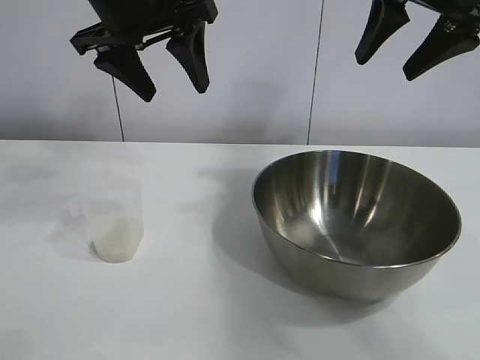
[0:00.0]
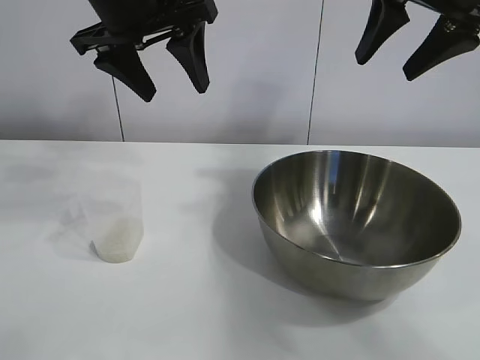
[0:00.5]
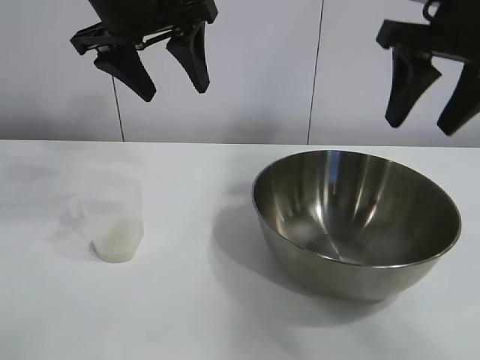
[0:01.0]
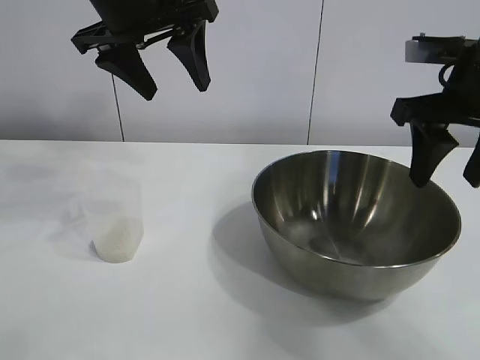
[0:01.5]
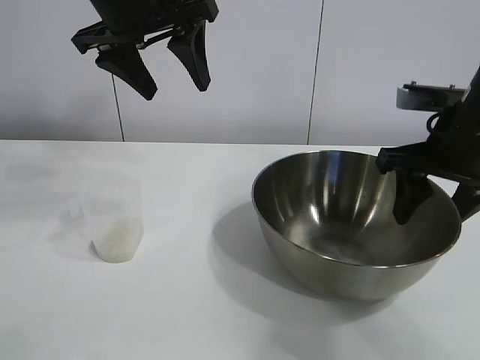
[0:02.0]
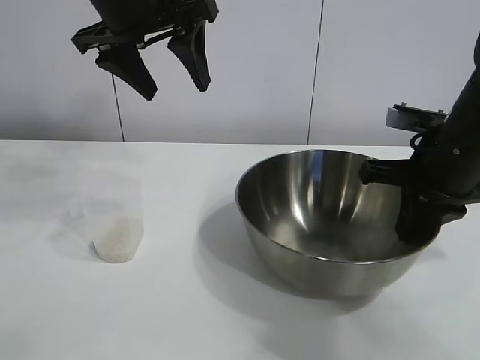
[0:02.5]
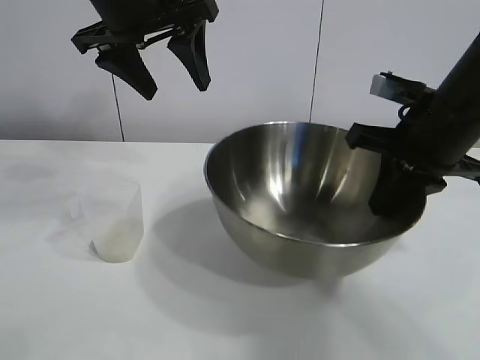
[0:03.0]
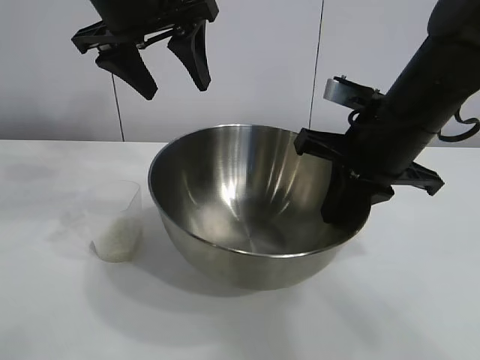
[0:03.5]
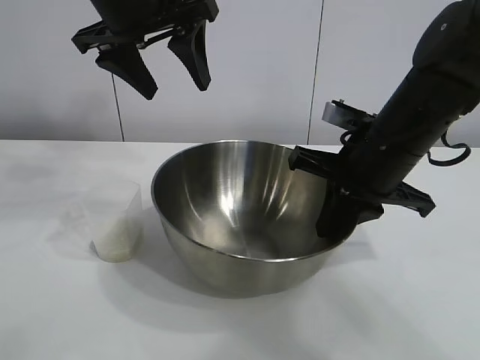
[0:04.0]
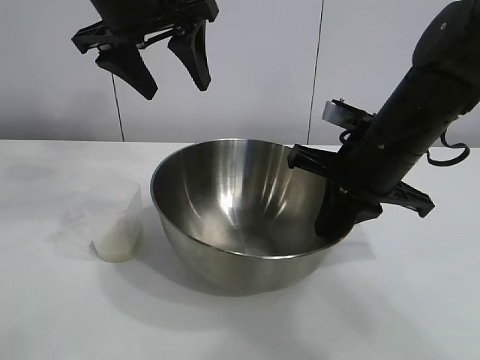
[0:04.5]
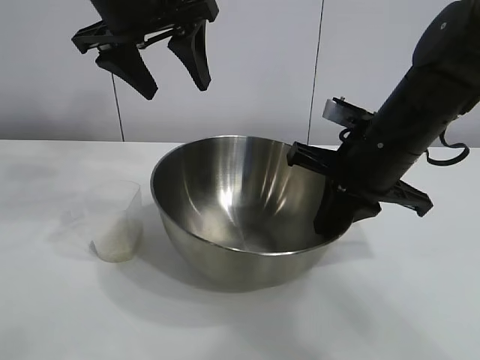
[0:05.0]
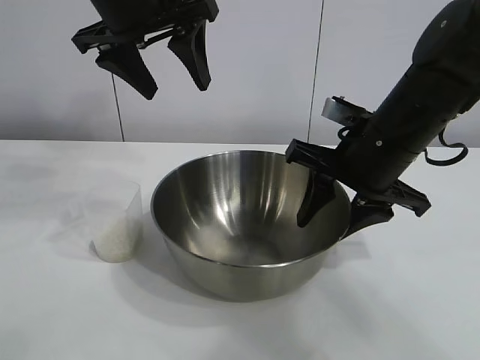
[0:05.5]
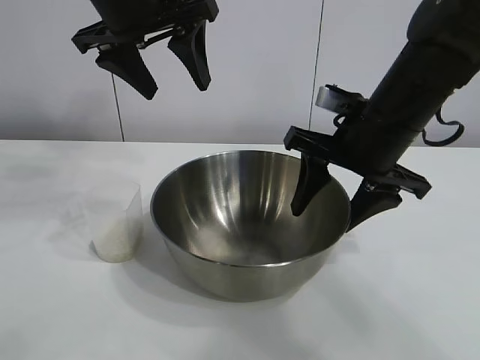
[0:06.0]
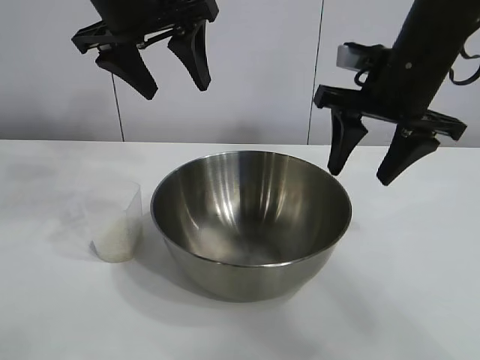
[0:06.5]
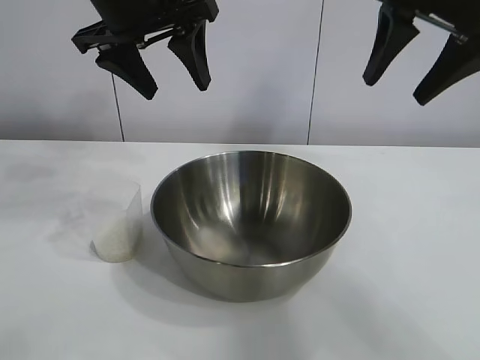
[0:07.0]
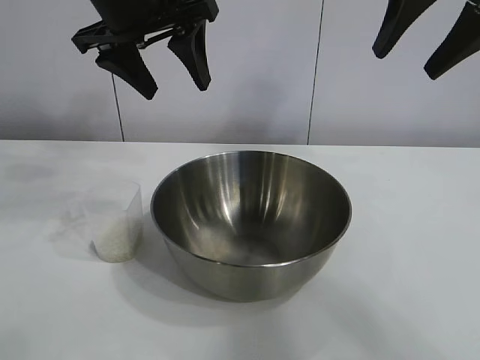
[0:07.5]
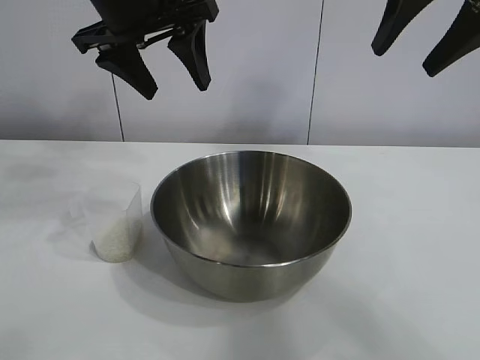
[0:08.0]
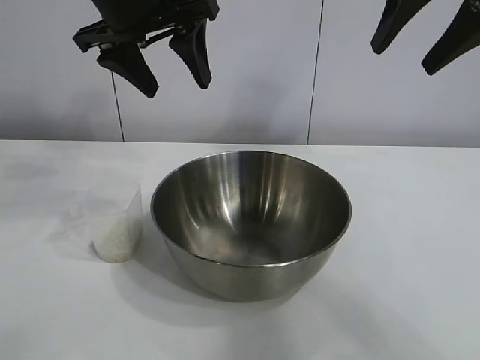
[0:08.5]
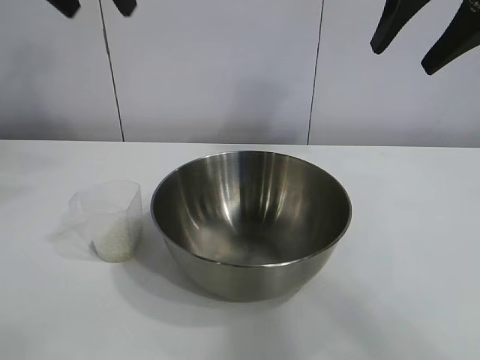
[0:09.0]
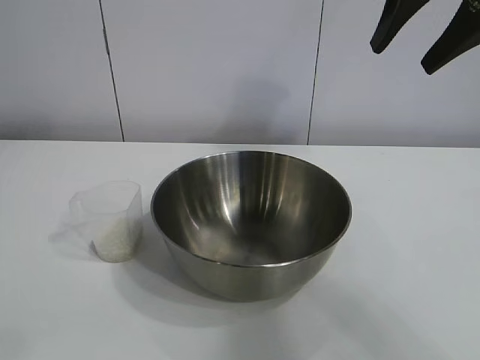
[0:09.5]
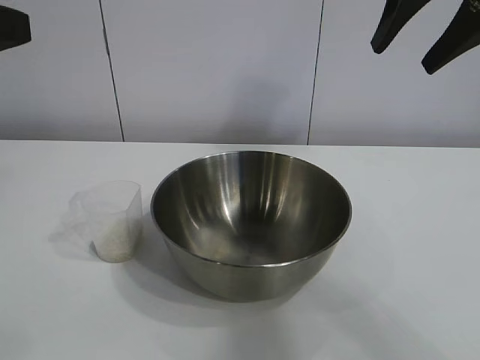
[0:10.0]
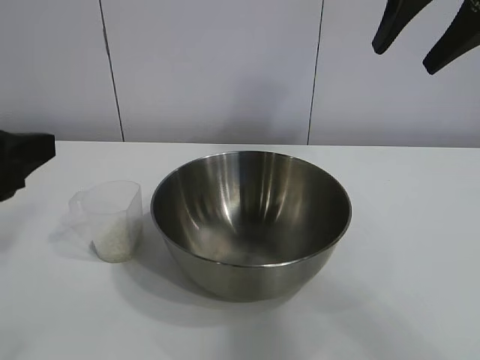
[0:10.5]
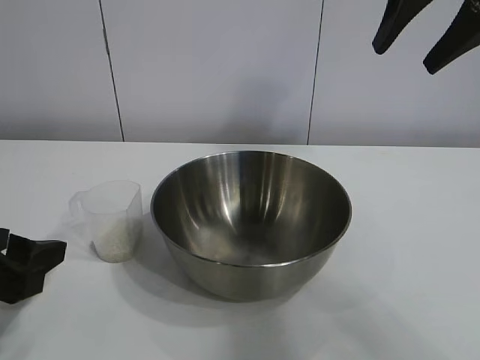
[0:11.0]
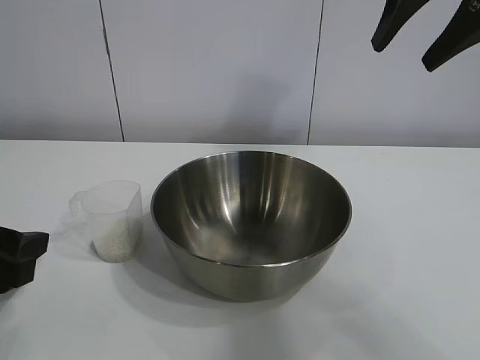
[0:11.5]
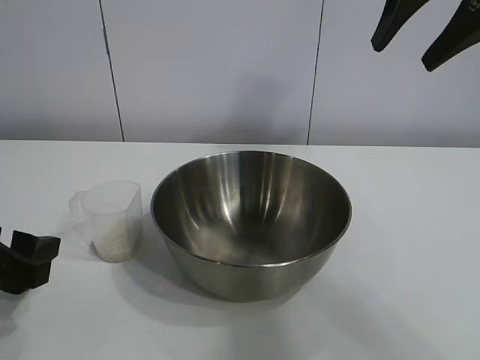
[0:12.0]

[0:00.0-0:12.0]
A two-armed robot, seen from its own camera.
Task of the whole recording: the right gripper grasp the rice container and place it in the center of the table, the left gripper grasp the rice scoop and pour the rice into the rice container.
Step, 0:01.0 to 0:05.5: Move the bowl in the center of view with right gripper.

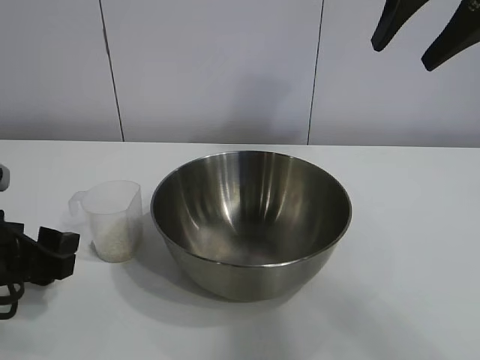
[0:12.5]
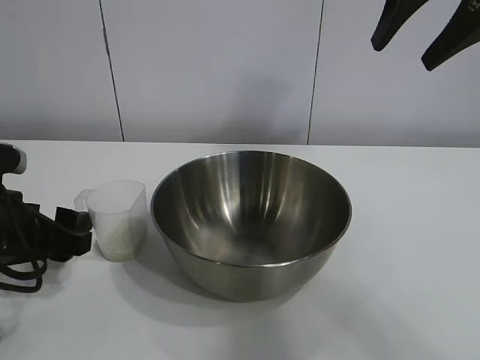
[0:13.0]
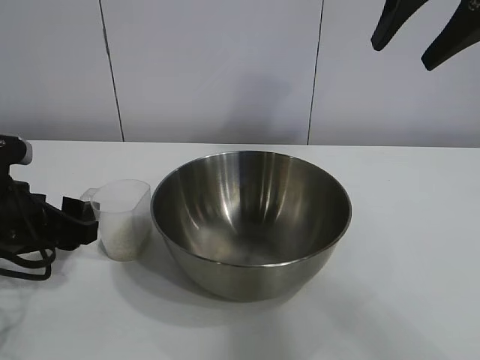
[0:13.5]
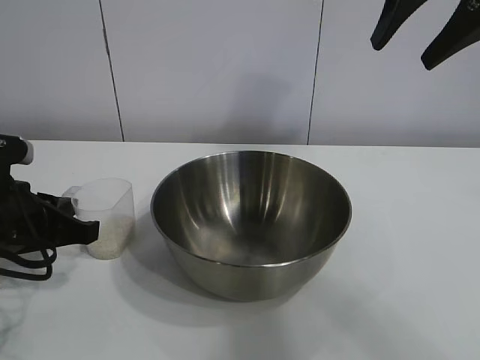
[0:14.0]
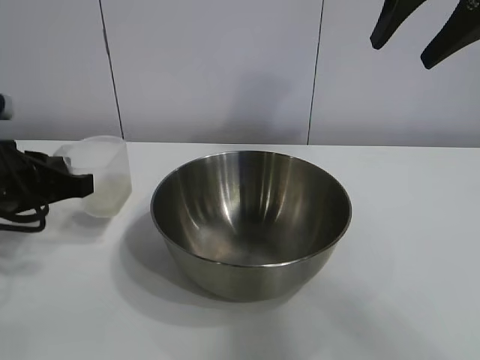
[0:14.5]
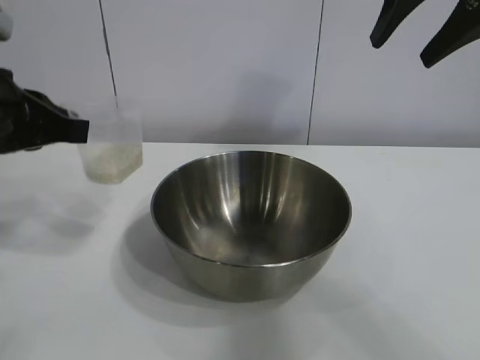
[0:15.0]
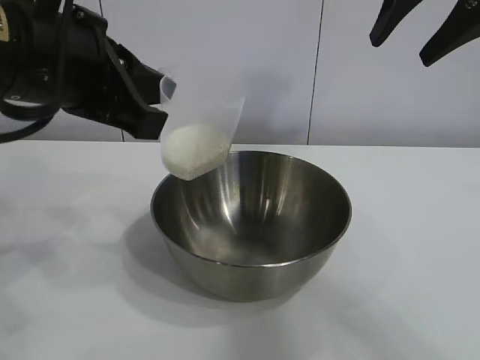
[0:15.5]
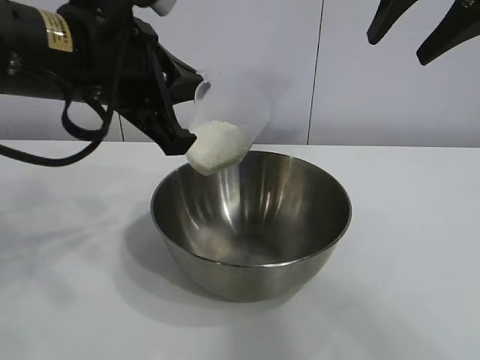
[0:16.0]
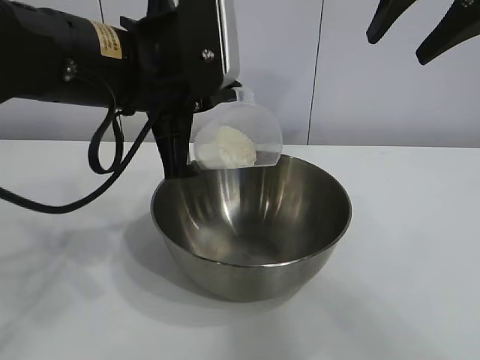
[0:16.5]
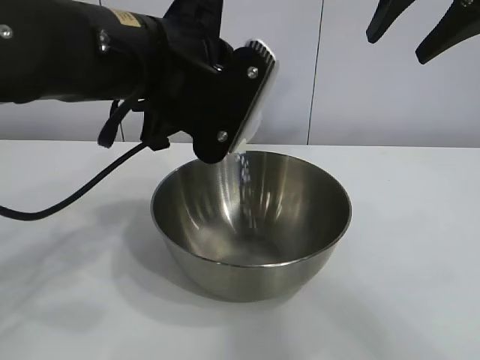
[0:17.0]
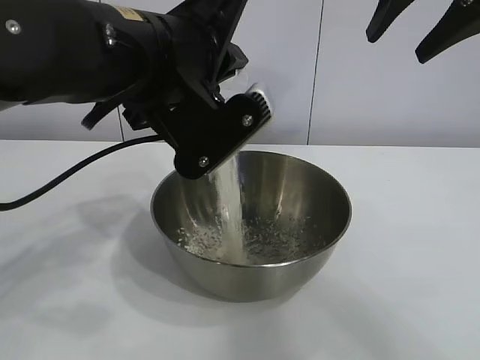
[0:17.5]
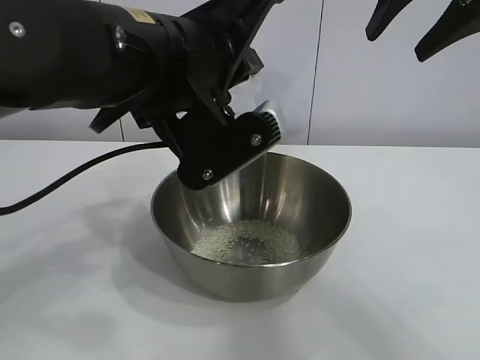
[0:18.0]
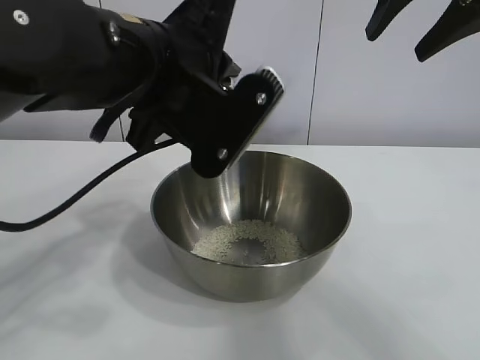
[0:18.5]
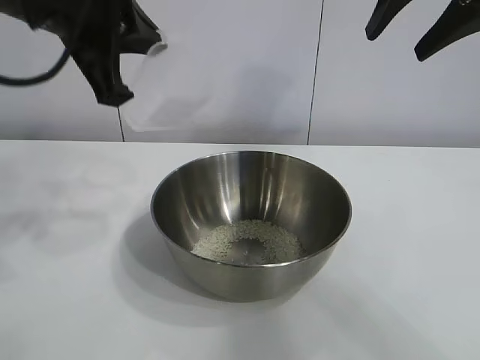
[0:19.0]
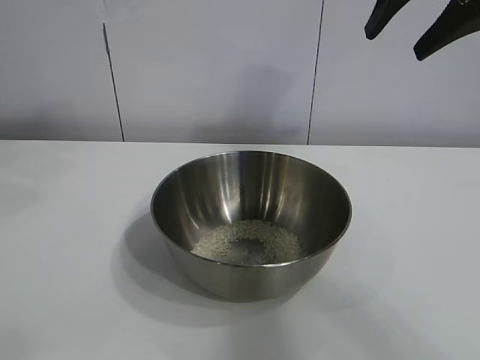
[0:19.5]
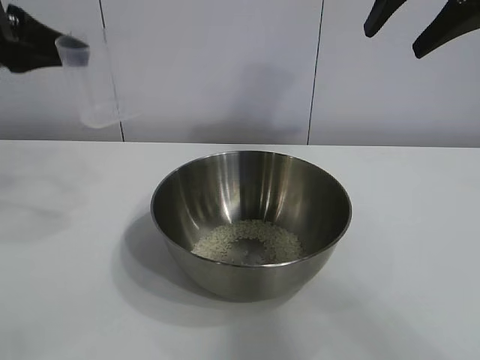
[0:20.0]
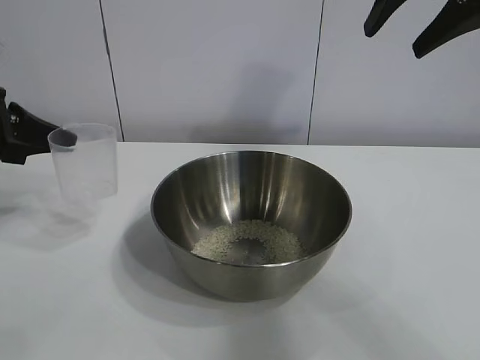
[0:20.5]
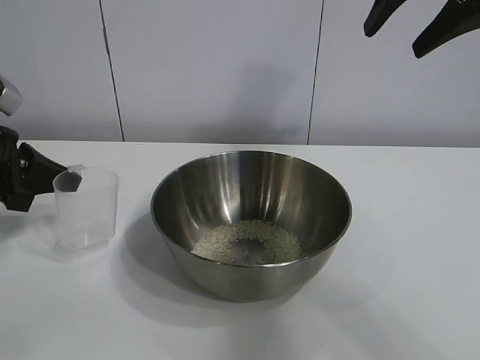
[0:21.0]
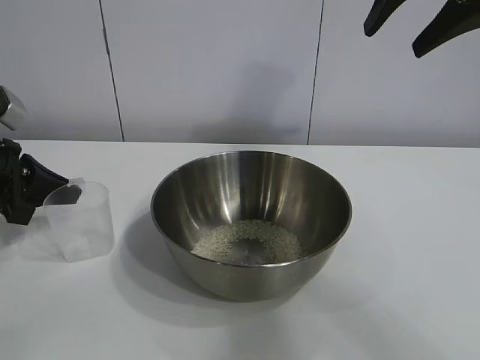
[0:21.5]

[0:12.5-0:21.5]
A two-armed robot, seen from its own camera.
Task of the whole recording: the right gripper grasp the rice container and place it in the center of the table, the left gripper grasp the rice scoop and pour the rice into the rice container.
Step, 0:14.5 to 0:18.0: Pour the rice from the cup into the bowl with the left gripper.
